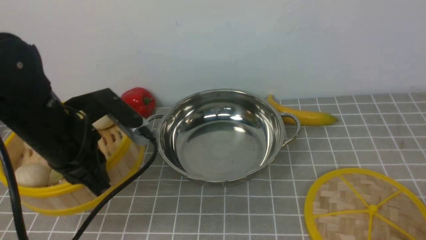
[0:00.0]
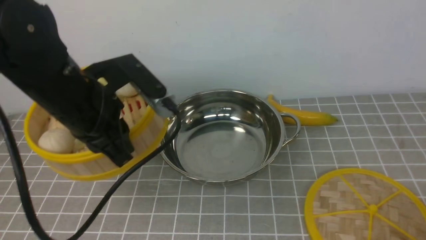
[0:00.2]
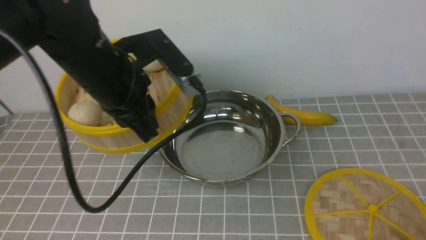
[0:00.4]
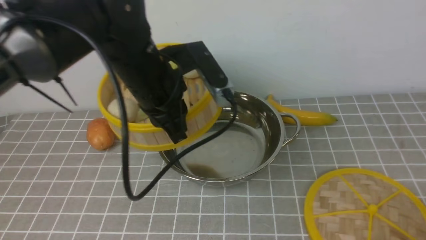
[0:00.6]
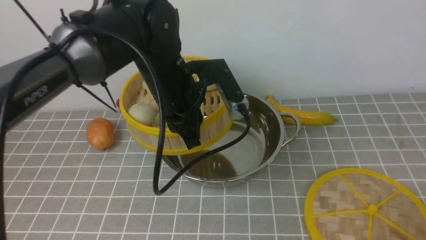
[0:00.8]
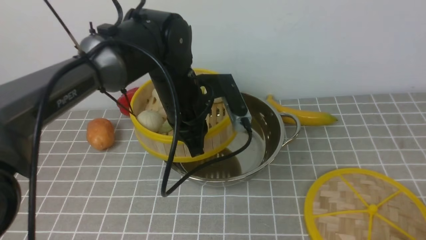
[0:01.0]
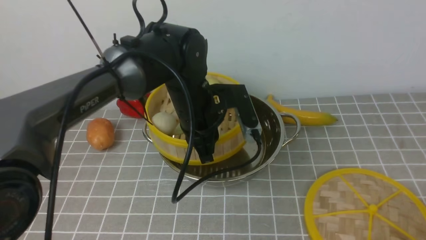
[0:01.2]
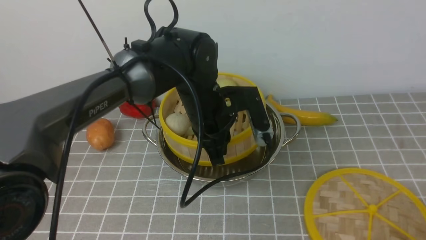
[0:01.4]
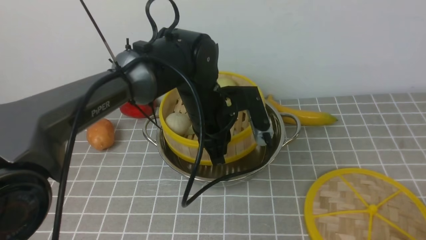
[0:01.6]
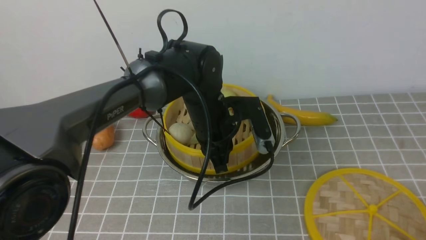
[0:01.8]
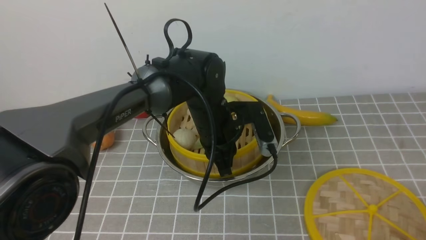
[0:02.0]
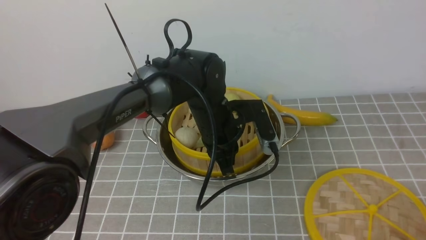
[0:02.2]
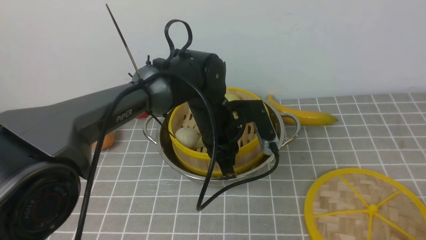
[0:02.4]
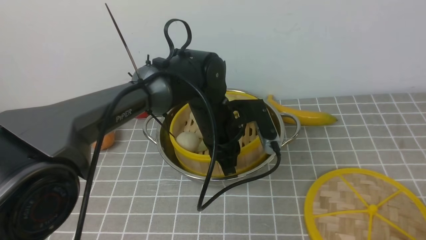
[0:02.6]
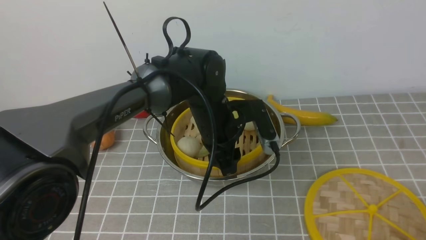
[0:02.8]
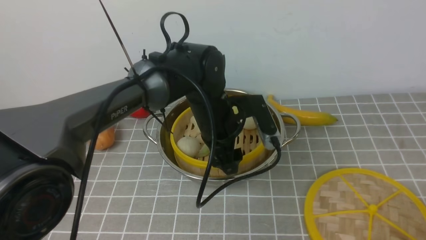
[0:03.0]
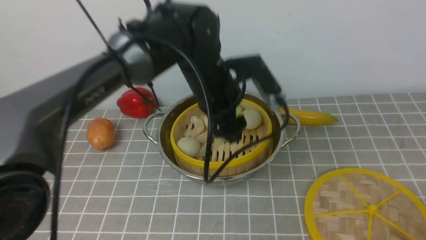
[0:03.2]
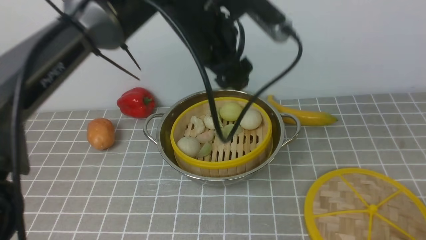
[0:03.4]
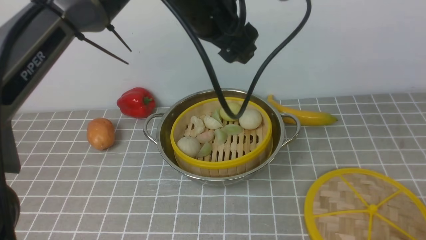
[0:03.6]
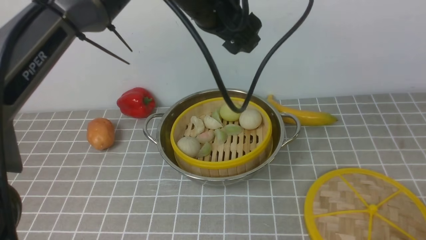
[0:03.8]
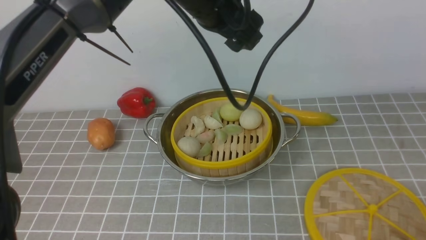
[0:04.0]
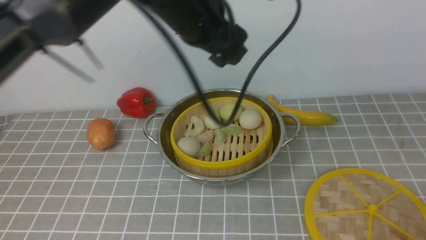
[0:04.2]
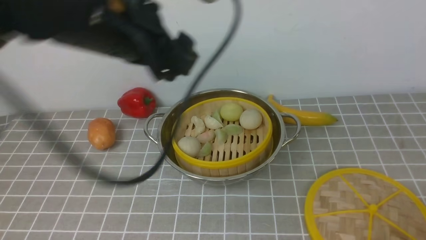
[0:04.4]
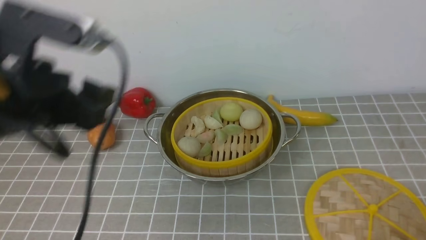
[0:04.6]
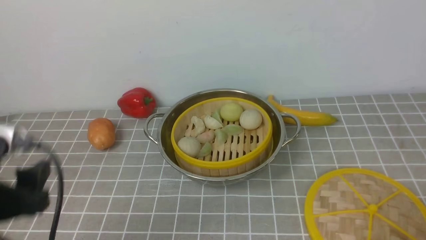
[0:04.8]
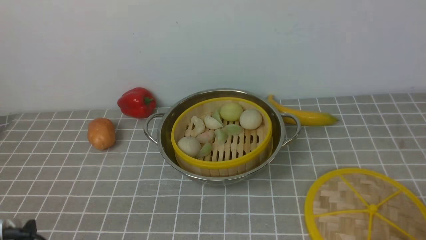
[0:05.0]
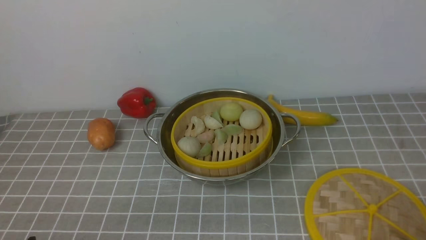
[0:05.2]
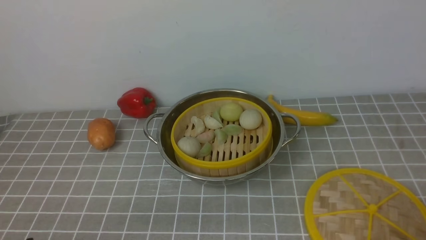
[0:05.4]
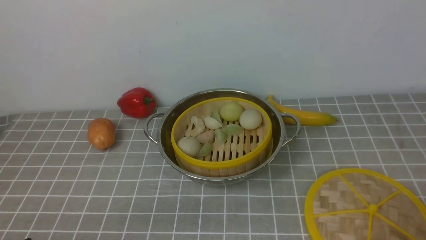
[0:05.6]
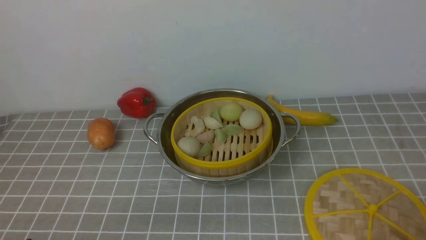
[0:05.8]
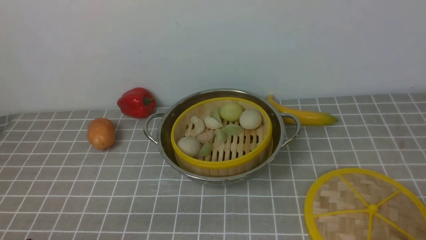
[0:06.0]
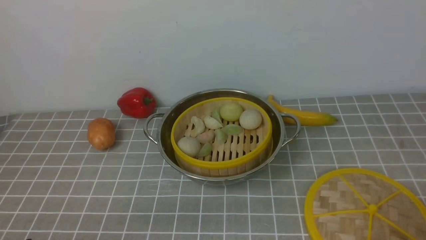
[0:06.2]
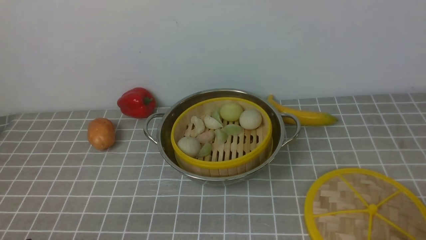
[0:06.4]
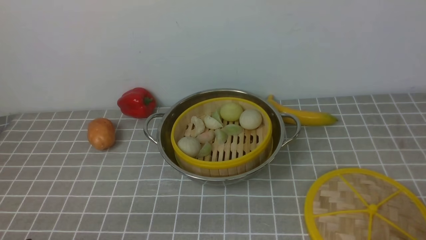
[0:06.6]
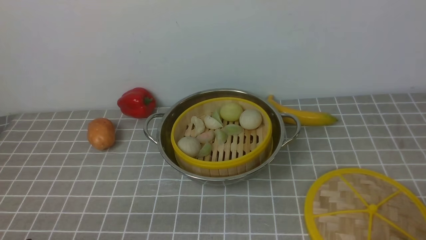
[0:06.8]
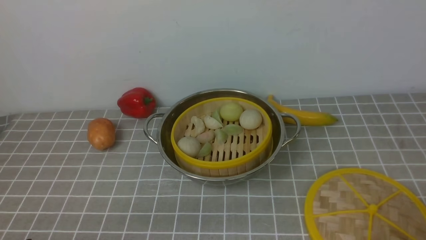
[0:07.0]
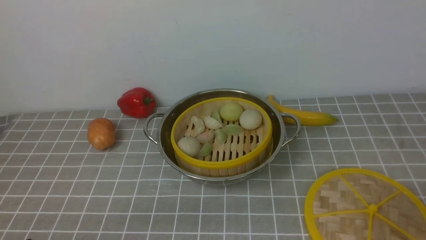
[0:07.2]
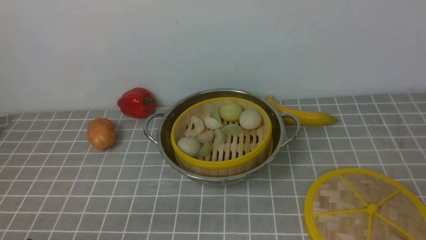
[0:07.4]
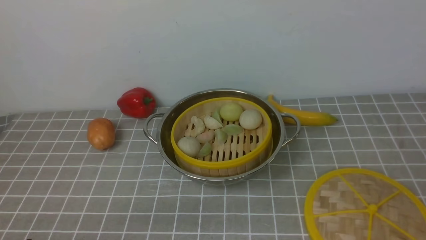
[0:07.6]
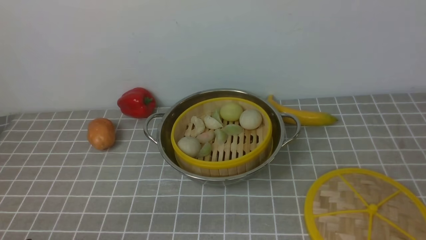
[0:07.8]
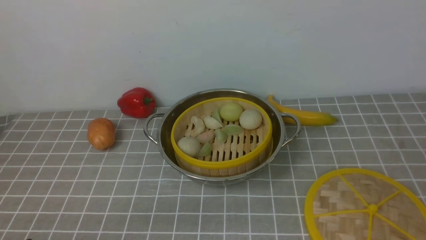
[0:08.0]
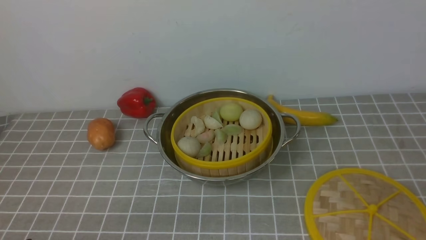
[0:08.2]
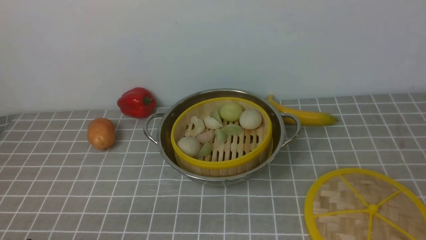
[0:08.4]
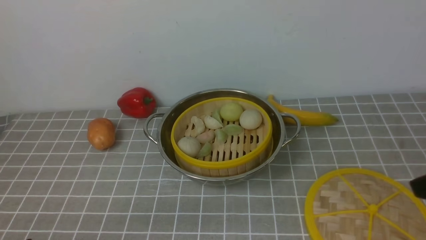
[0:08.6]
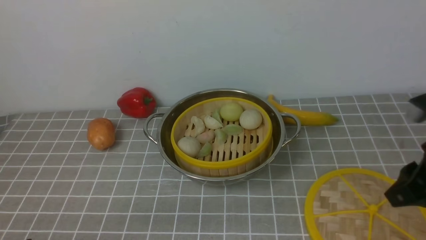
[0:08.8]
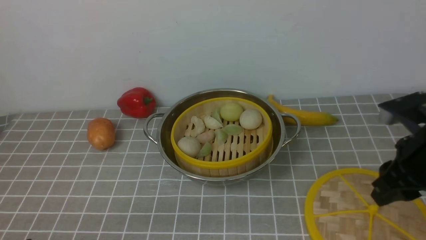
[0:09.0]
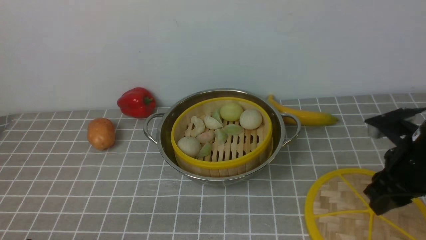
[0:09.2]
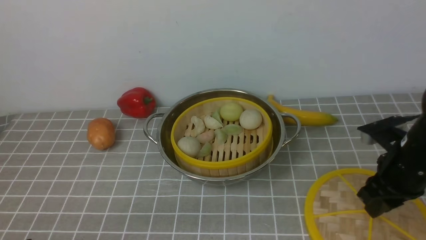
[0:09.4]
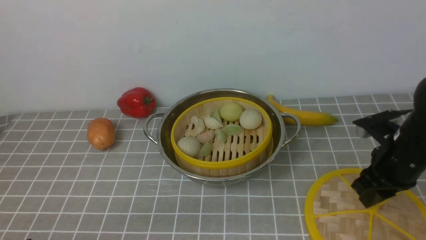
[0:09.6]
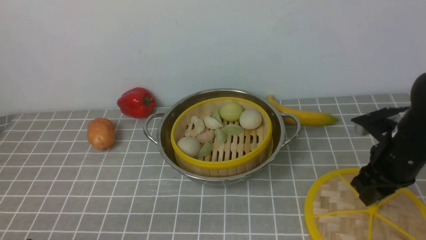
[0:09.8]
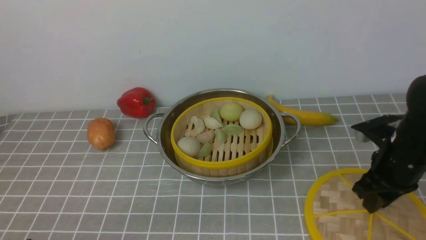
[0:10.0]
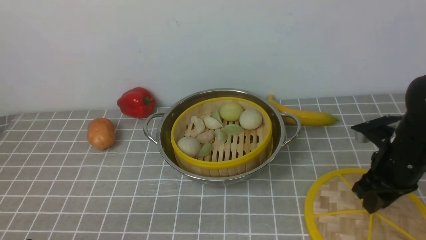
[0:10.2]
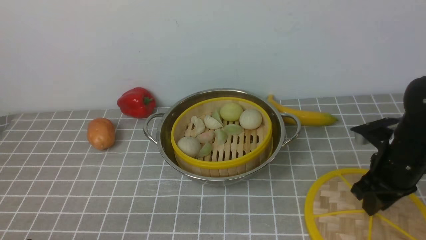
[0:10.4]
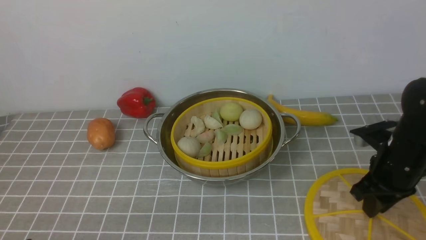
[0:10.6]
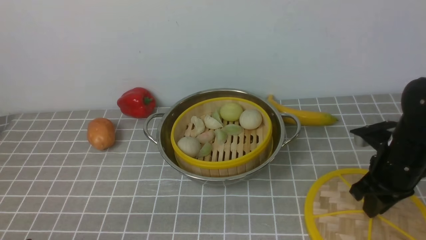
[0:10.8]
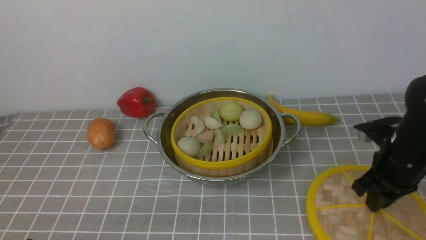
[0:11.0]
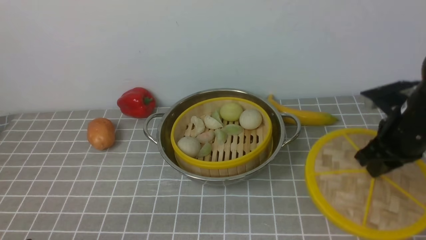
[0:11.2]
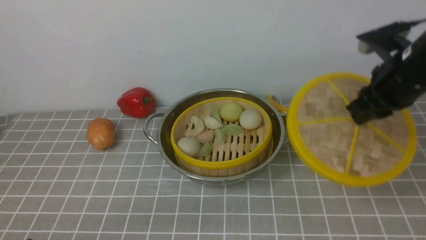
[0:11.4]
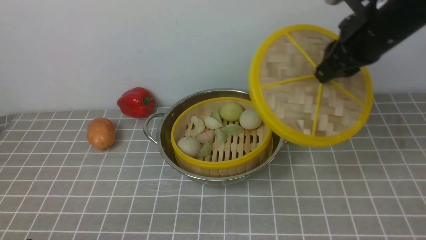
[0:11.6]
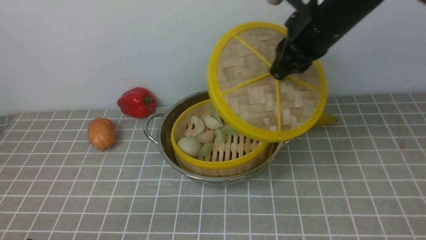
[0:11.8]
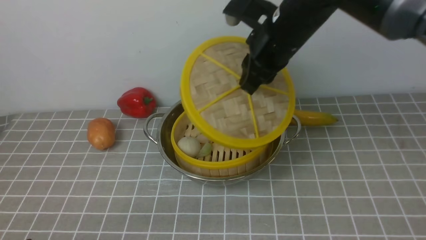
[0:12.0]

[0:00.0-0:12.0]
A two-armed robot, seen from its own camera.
Task of the whole recording: place the steamer in the pot on the grey tablecloth, and put the lid on the steamer.
Step, 0:00.0 to 0:03.0: use the left arm to put the steamer into the iron steamer pot in the middle.
Step, 0:03.2 to 0:11.0: use the right arm to lift the lid of the steamer.
0:00.0 to 0:01.6: The left gripper moves to the right, forward and downward, roughly 20 cm.
0:01.6 to 0:03.0: The left gripper opens its fingers.
0:03.0 to 0:04.4: The left gripper heads upward, to the left and backward, covering about 20 cm.
0:04.4 to 0:06.0: The left gripper is displaced backward, downward and to the left by roughly 35 cm.
0:07.6 to 0:09.0: The right gripper moves forward, approximately 20 cm.
0:09.0 to 0:10.4: The right gripper is displaced downward and forward by approximately 10 cm.
0:10.4 to 0:12.0: The right gripper heads to the left, upward and forward, covering some 25 cm, and closes its fingers.

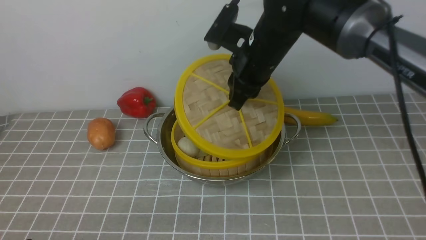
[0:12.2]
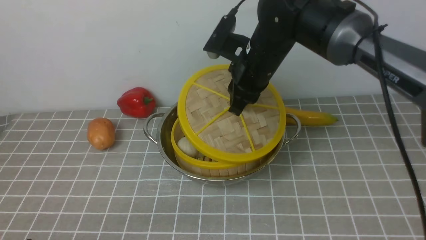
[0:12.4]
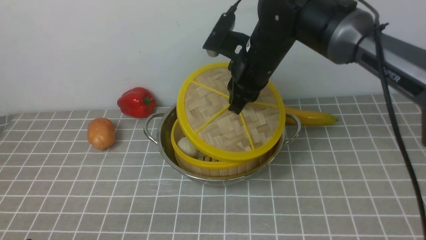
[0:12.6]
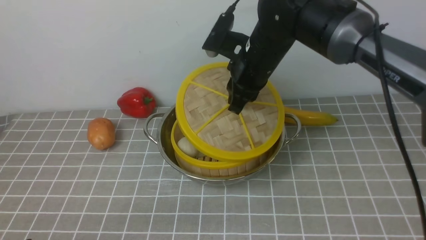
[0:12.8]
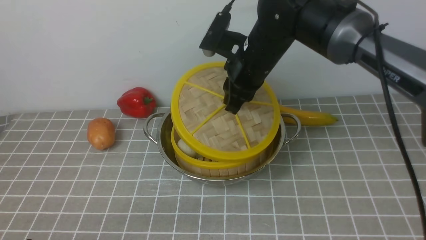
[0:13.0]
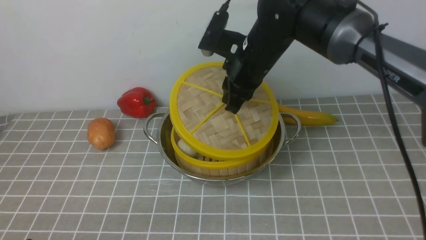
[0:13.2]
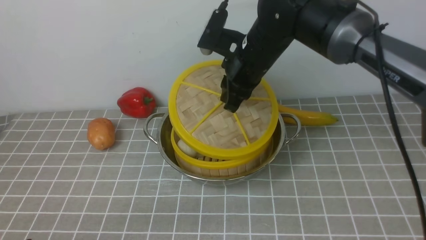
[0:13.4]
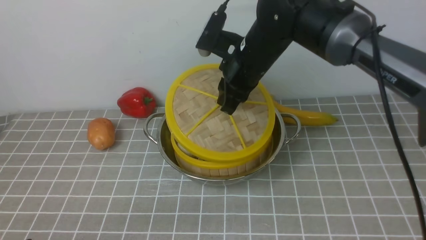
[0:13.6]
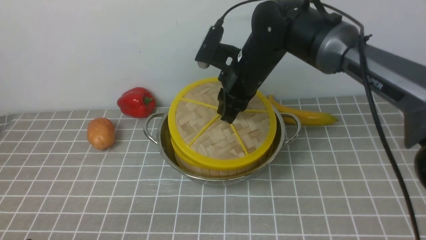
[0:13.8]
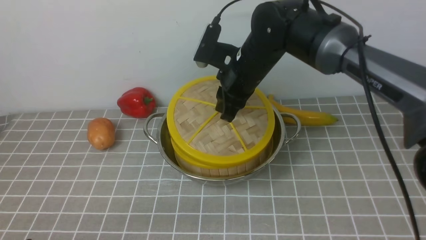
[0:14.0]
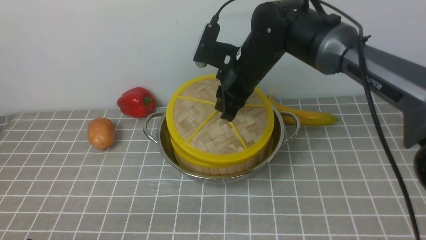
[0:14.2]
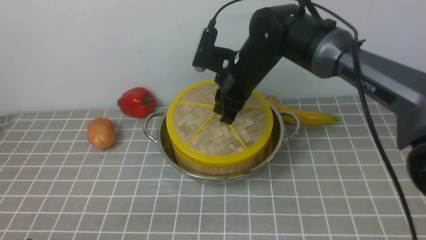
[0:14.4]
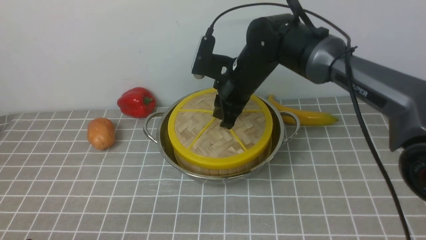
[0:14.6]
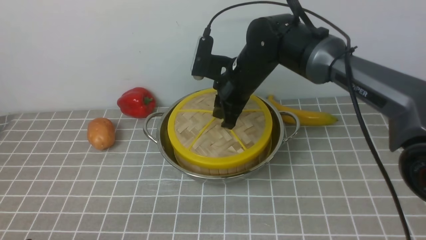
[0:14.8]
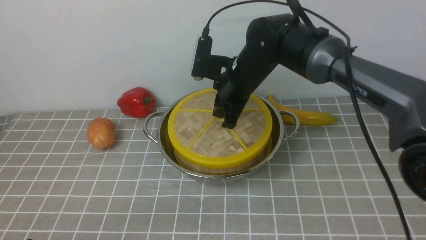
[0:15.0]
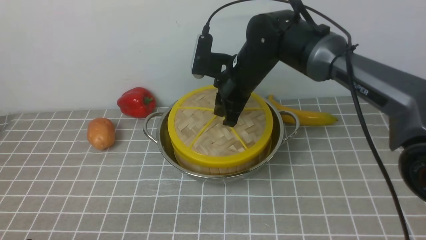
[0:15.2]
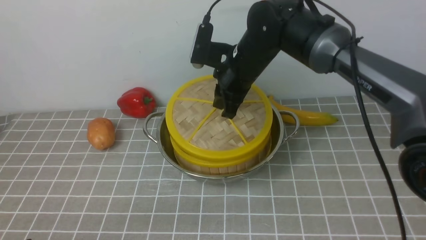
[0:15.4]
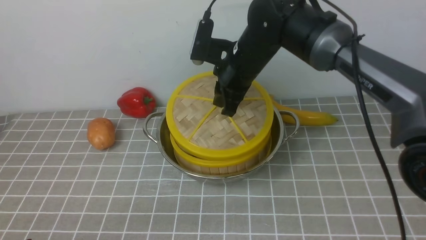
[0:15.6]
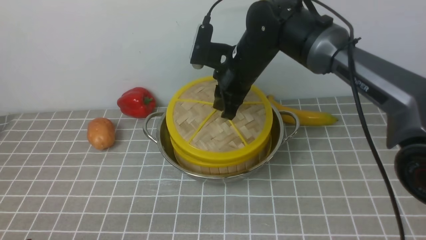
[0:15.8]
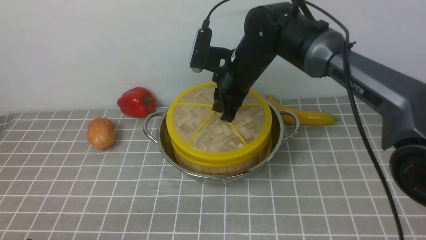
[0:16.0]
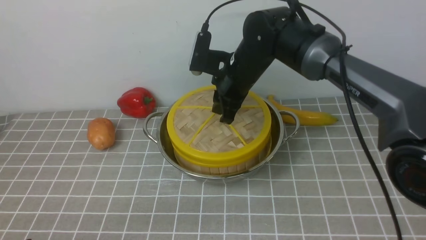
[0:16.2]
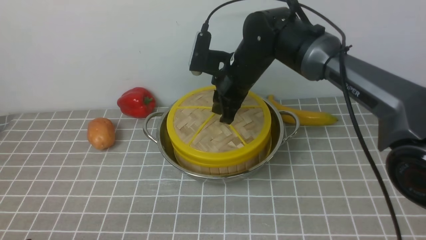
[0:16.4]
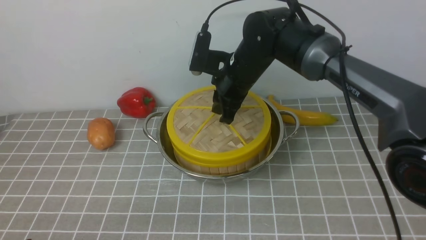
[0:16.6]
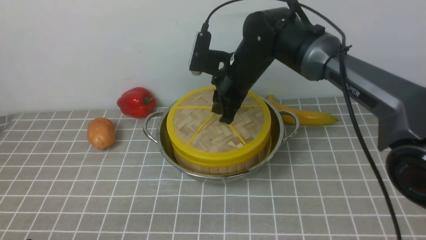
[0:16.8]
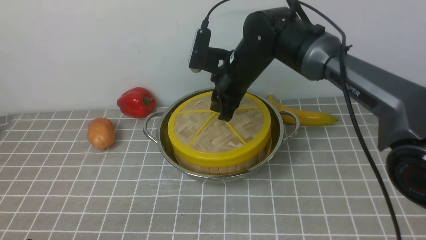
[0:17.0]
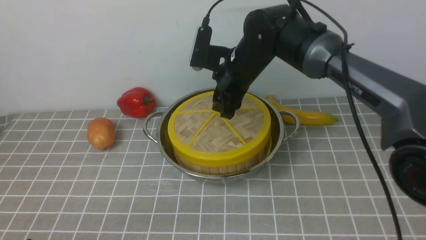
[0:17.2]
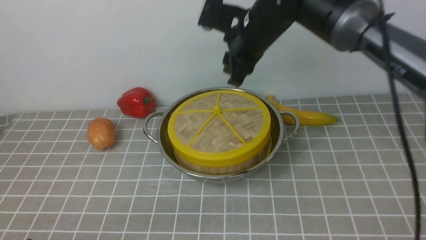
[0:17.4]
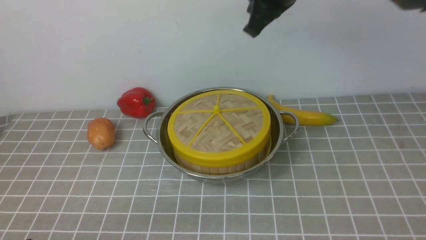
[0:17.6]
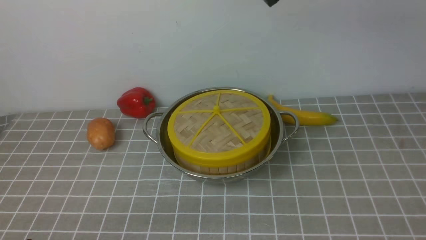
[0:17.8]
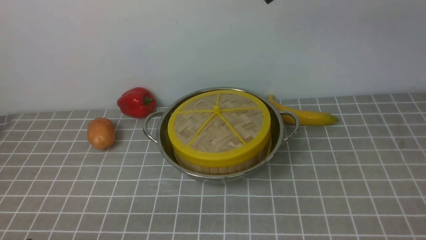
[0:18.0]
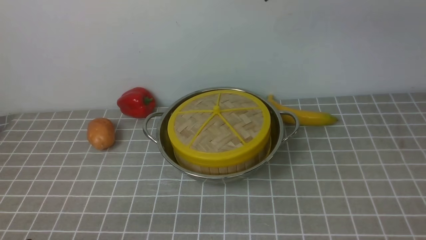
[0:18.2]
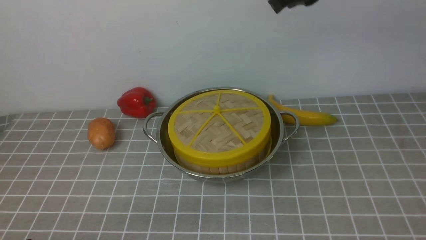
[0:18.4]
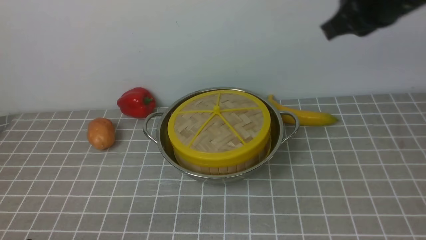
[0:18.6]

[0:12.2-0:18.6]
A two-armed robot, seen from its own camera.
Task of the whole recording: place the steamer in the pot on the grey tablecloth, and put the lid on the steamer.
Step, 0:12.2 to 0:17.2: use the right arm to place the steamer lid on the steamer.
0:12.2 to 0:13.8: The grippers stay close to where they were, moving slightly.
0:13.8 to 0:15.4: The grippers stay close to where they were, moving slightly.
0:15.4 to 0:17.0: The right gripper opens its fingers.
0:17.0 to 0:18.6: The right gripper goes roughly 30 cm to the right, upward and backward, and closes up.
